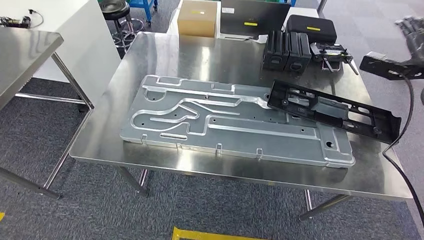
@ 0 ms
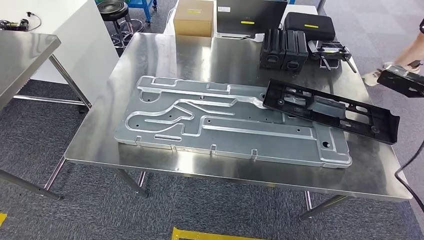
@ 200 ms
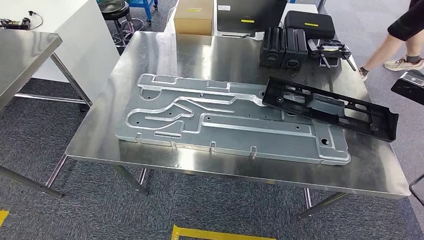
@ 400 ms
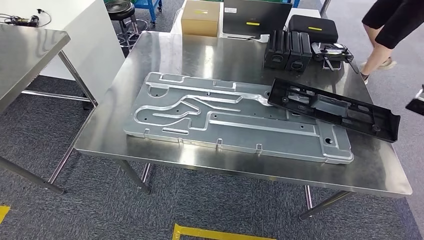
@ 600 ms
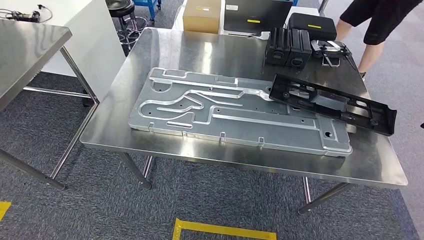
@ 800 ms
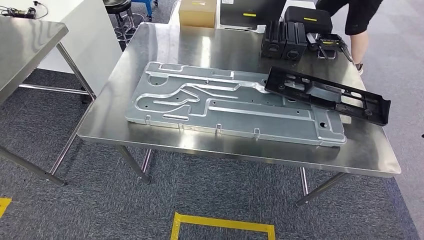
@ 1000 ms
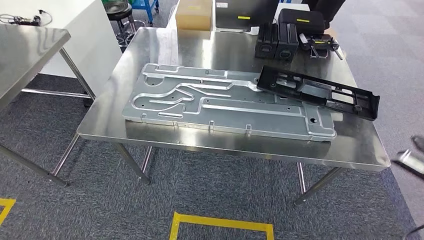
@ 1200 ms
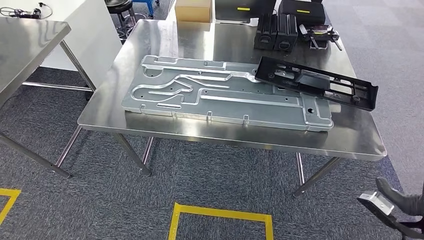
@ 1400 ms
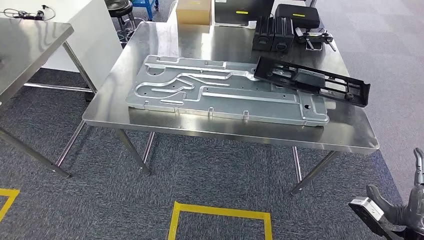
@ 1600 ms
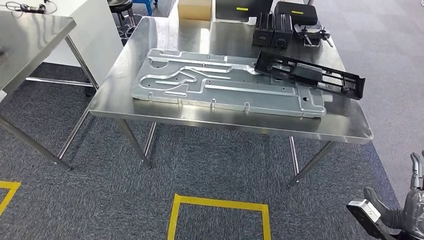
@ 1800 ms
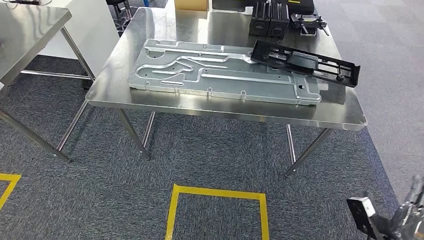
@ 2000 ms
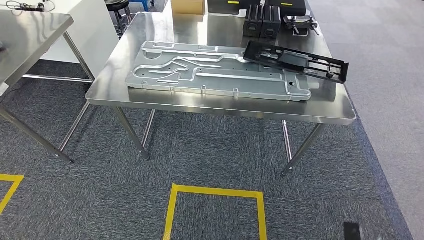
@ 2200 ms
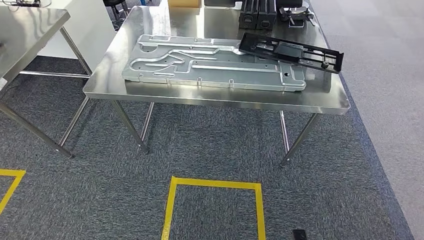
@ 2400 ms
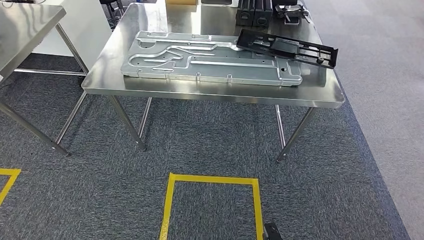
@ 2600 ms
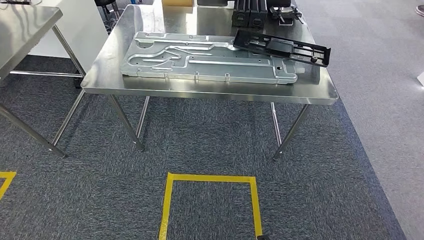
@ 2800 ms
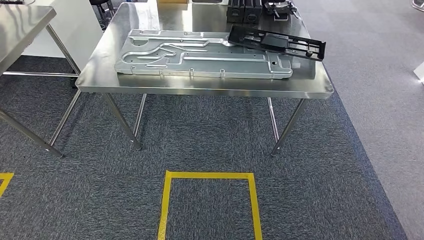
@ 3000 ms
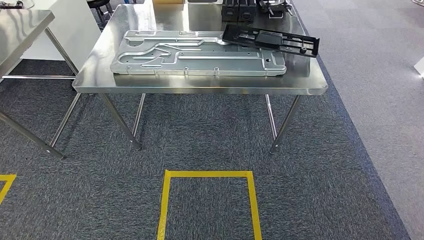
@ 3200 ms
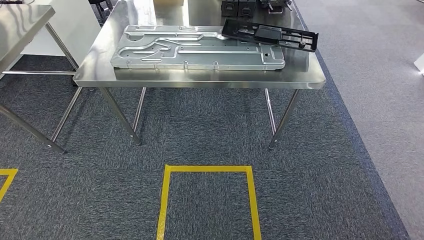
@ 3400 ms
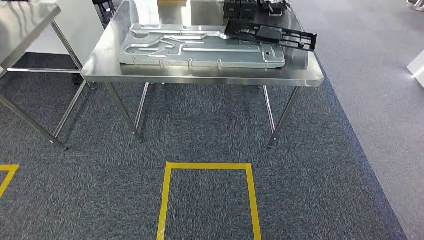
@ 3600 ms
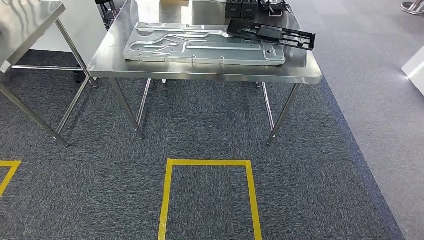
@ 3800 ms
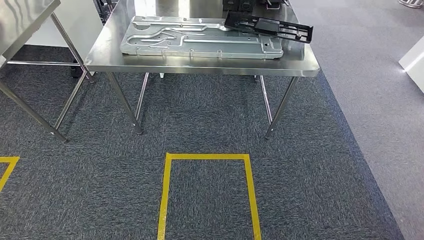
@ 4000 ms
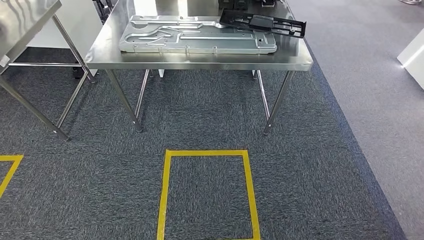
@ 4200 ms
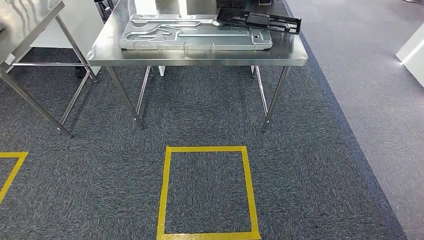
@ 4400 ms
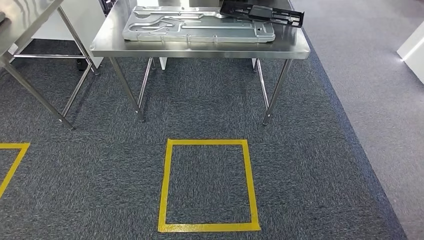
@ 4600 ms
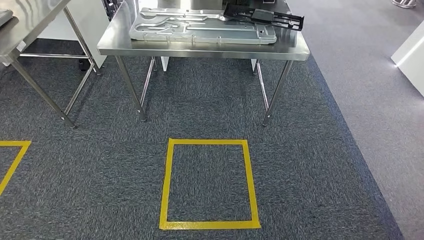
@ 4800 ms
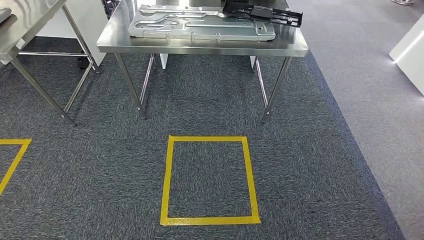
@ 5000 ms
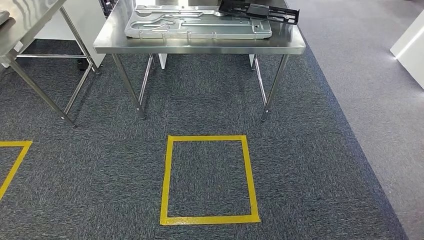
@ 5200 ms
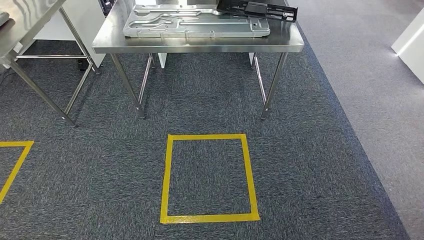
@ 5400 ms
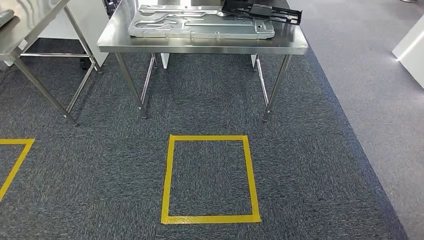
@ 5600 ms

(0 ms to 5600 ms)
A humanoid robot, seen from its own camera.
Step, 1200 ms - 5600 ms: Move to the initial position of the shelf.
4200 ms - 5600 ms: The hands stay close to where they were, moving slightly.
